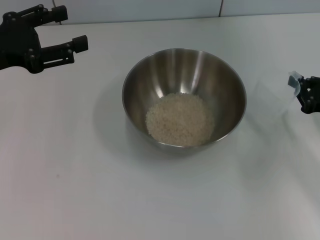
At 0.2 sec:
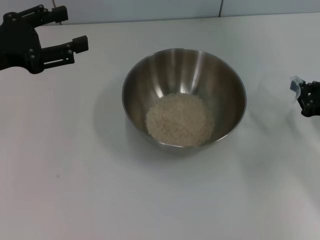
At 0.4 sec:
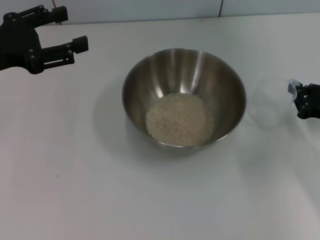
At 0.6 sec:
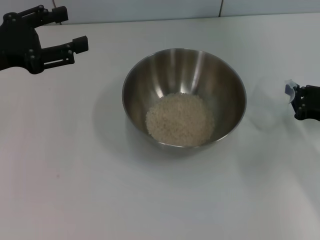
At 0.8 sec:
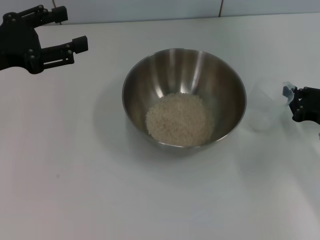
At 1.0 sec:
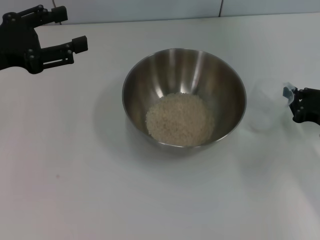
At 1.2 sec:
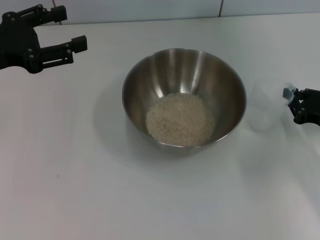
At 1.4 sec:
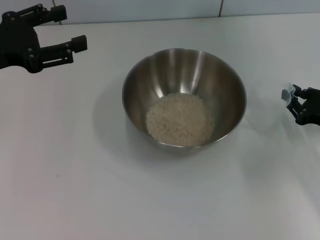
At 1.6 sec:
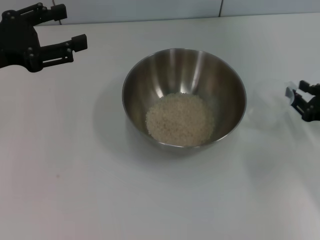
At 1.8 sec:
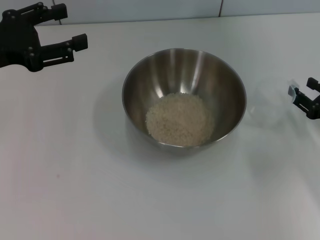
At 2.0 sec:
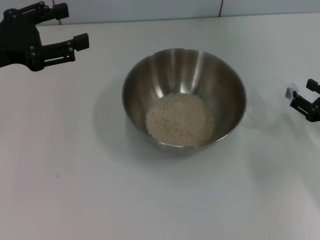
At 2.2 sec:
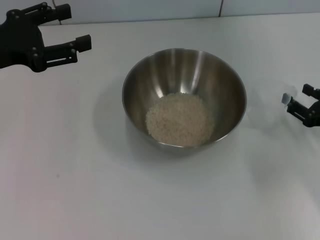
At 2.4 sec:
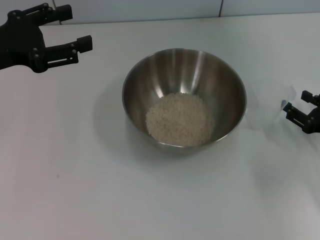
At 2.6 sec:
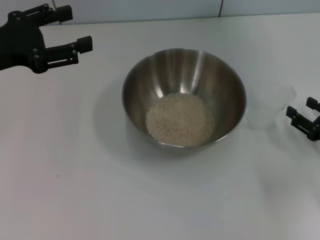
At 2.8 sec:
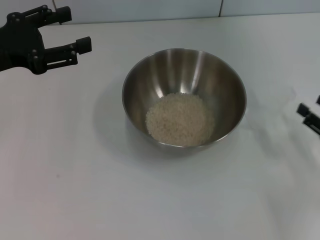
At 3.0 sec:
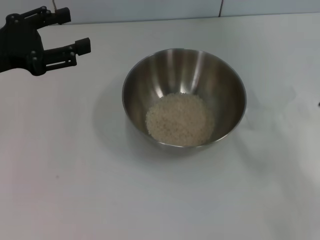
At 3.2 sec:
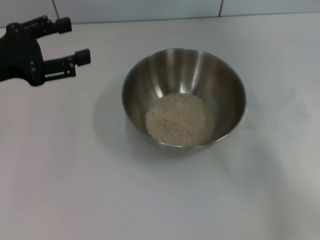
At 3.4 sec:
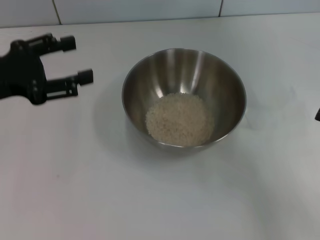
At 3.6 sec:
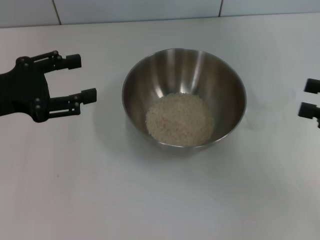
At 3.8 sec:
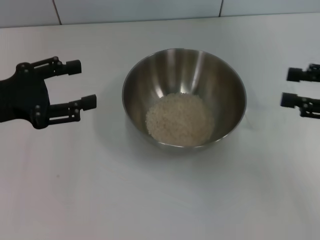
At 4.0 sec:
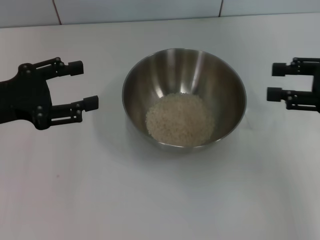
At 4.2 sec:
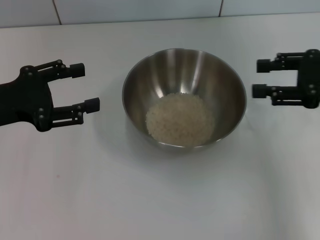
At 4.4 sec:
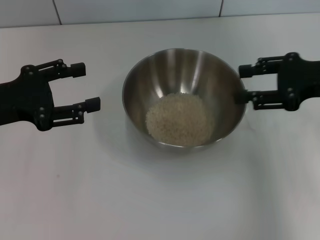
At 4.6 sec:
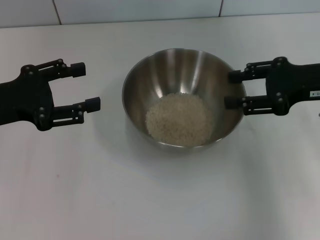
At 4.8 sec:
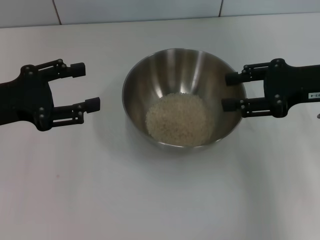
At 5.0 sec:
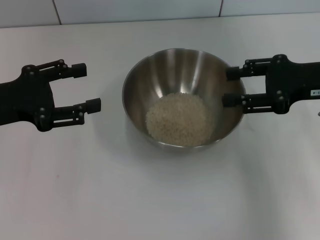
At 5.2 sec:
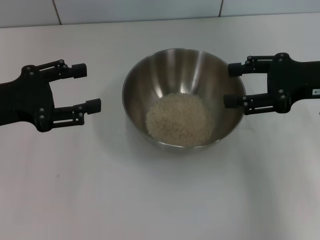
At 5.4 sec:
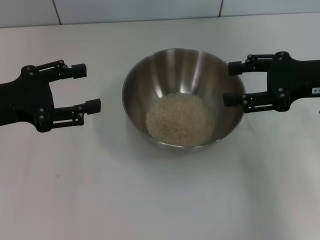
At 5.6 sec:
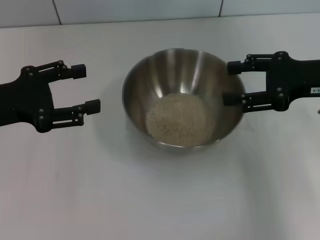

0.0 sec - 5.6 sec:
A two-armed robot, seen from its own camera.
Task of the whole recording: Place the bowl in the middle of the table with one hand and pour the rice from the grain cup into it with the other hand.
Step, 0.0 sec - 3.0 sec: Place the cup on the table with the right gripper.
0.0 sec - 1.4 sec: The grippers move only a little.
1.4 sec - 2.8 sec: The right gripper goes approximately 5 cm backward, and opens up.
2.8 sec - 4.2 sec: The right gripper moves upward and forward, some 15 cm.
4.2 sec - 5.6 sec: The grippers make only small movements.
